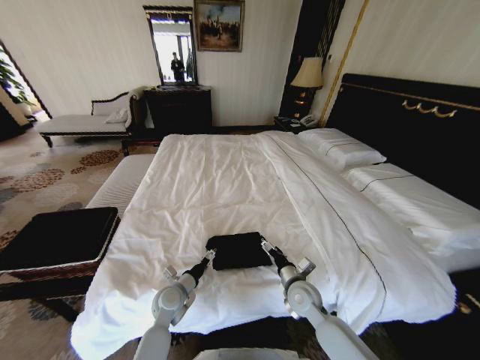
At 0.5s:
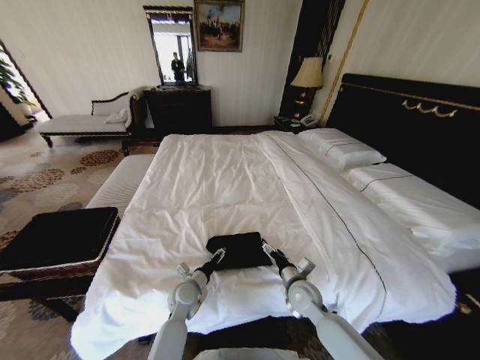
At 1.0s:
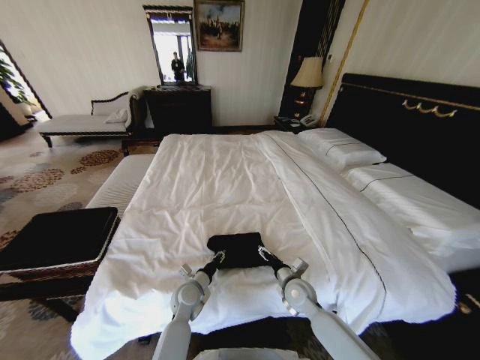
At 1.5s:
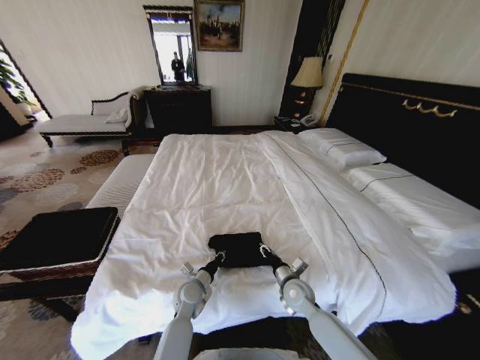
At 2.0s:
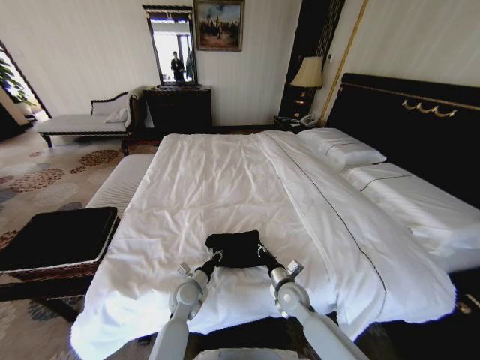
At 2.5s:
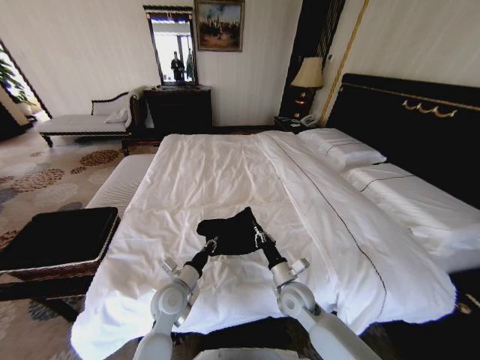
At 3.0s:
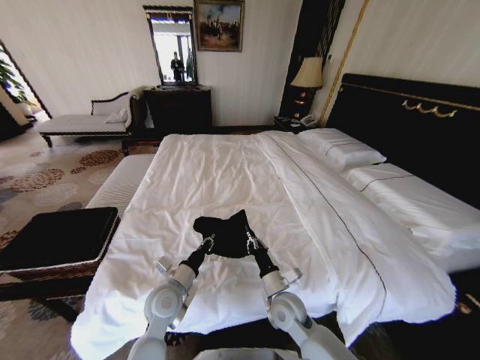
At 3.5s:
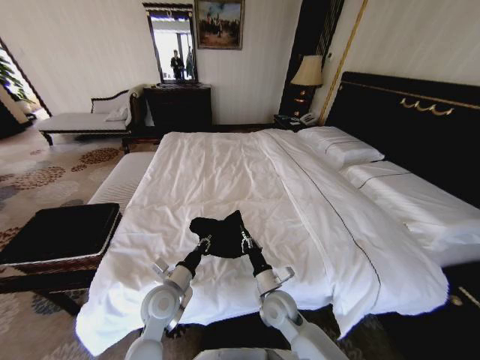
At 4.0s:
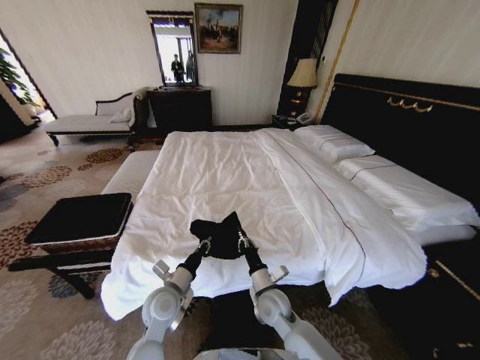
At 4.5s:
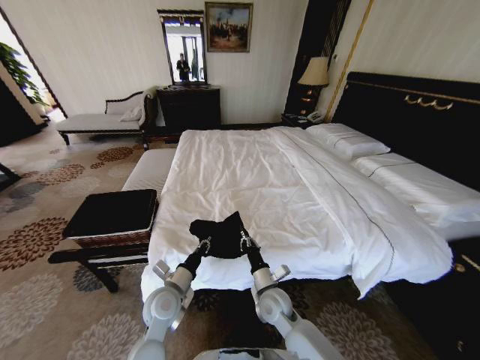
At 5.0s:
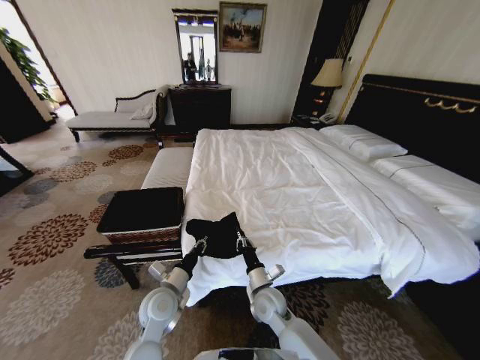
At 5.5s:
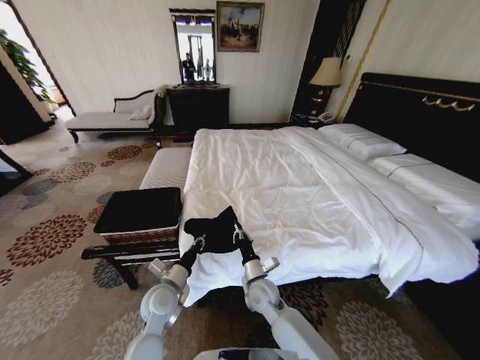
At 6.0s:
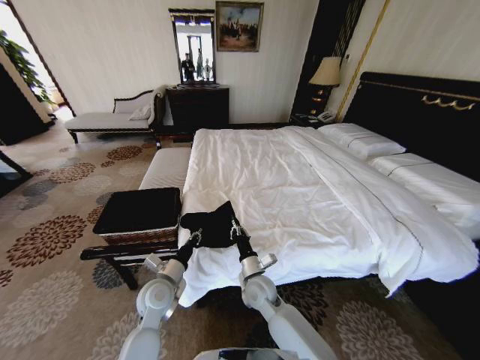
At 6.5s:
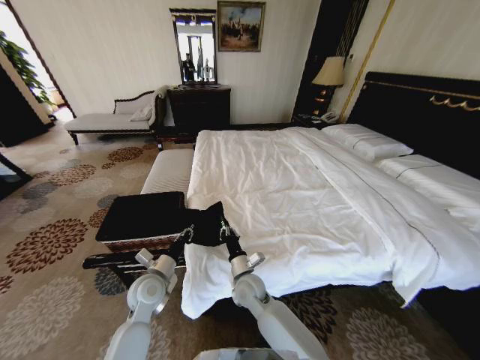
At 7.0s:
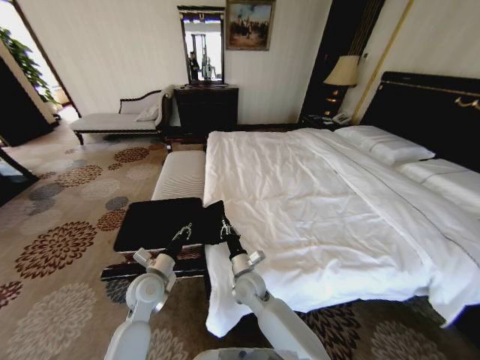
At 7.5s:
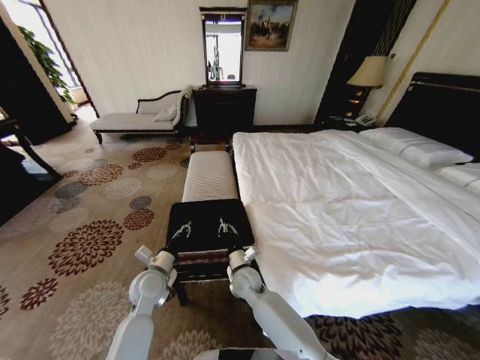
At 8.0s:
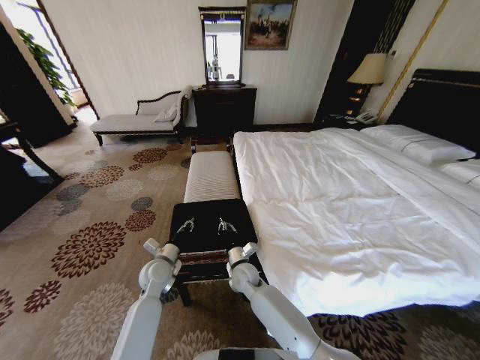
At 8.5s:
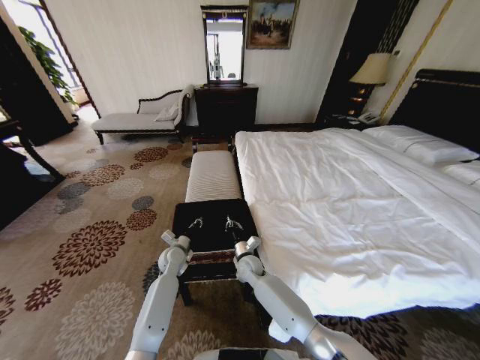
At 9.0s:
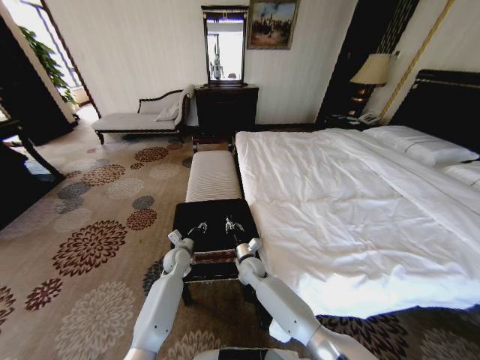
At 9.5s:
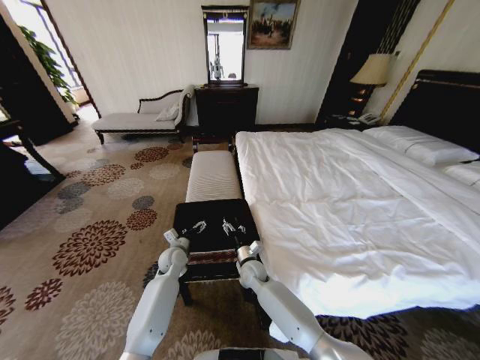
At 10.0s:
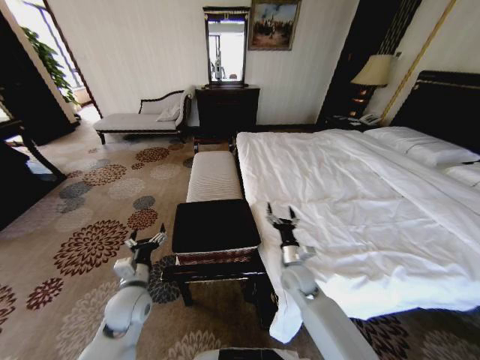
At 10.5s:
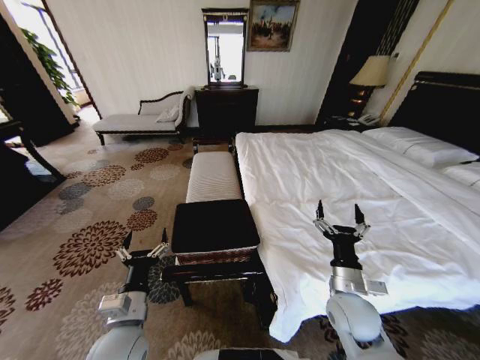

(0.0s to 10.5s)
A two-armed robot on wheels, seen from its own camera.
Task of the whole recording: Fold the clothes on the bed and place them into the basket.
0.0s - 2.0s: The right gripper closes its fingers. The left gripper shifts by approximately 5 cm, and closes up.
2.0s - 4.0s: The right gripper goes approximately 10 cm to the left. The left gripper heads upward, covering some 10 cm.
4.0s - 6.5s: The two grippers go about 5 cm to the left.
6.5s - 8.5s: The two grippers go approximately 15 cm forward and downward.
8.5s - 10.5s: The left gripper is displaced backward and upward by about 30 cm, and opens its fingers. The right gripper travels to the right, backward and upward by approximately 30 cm, and opens up.
